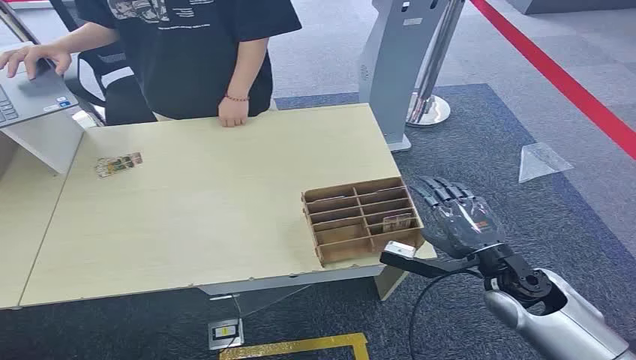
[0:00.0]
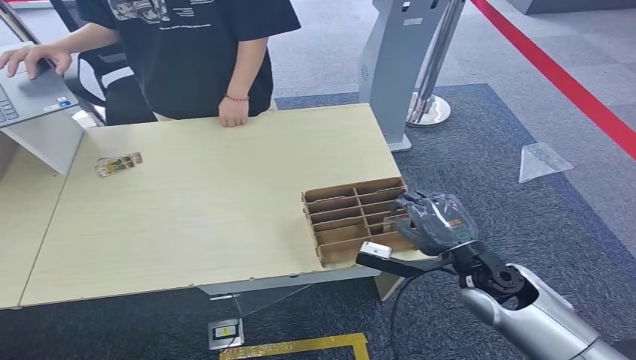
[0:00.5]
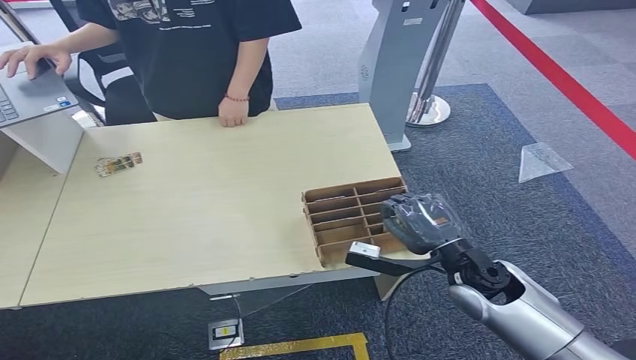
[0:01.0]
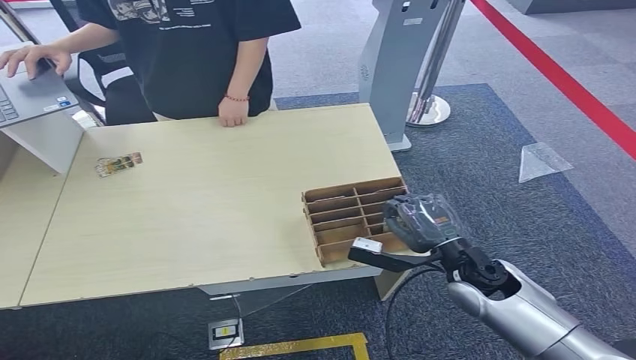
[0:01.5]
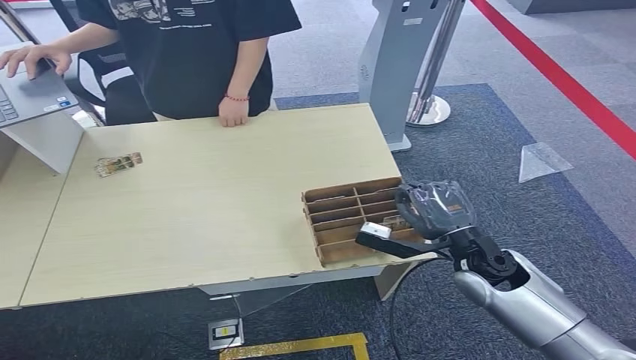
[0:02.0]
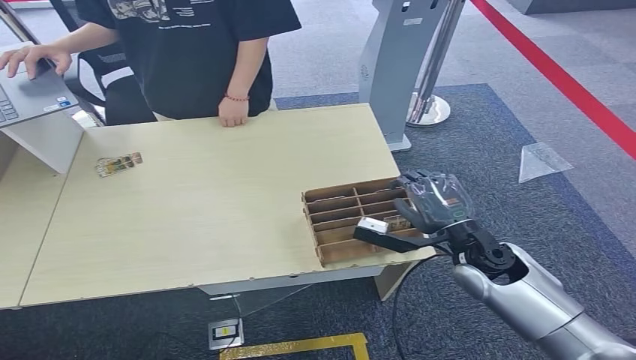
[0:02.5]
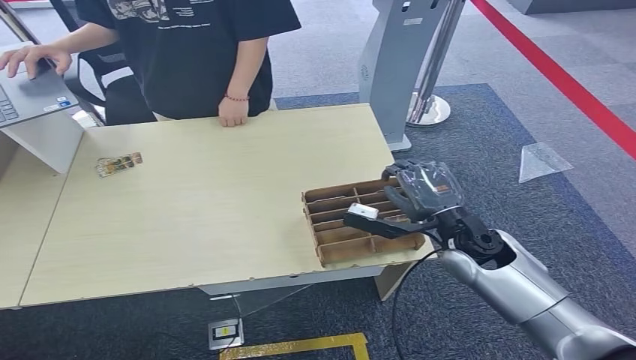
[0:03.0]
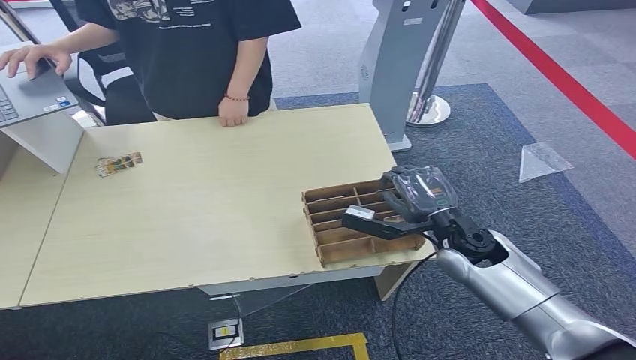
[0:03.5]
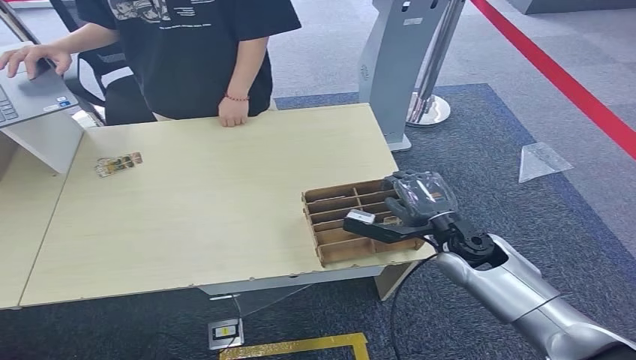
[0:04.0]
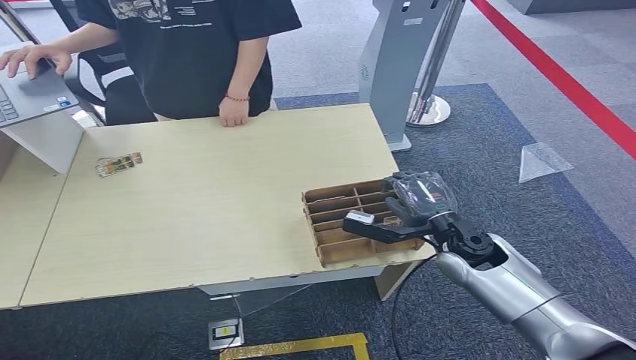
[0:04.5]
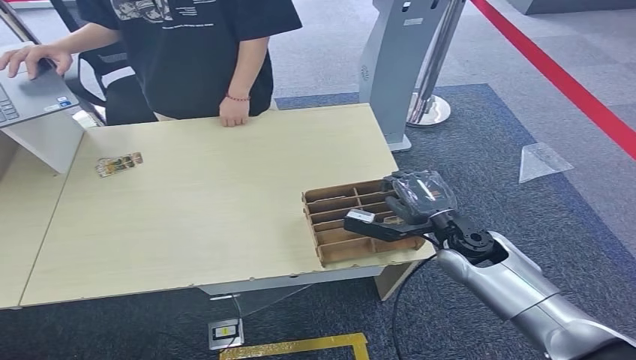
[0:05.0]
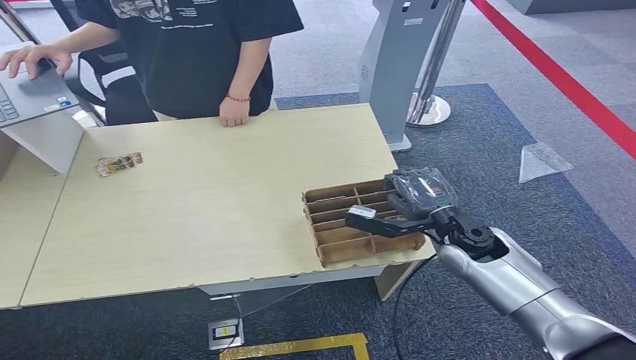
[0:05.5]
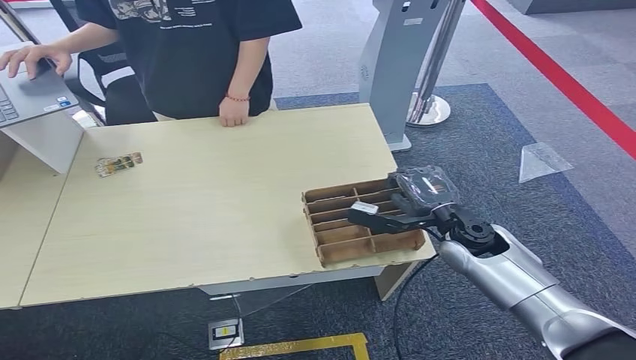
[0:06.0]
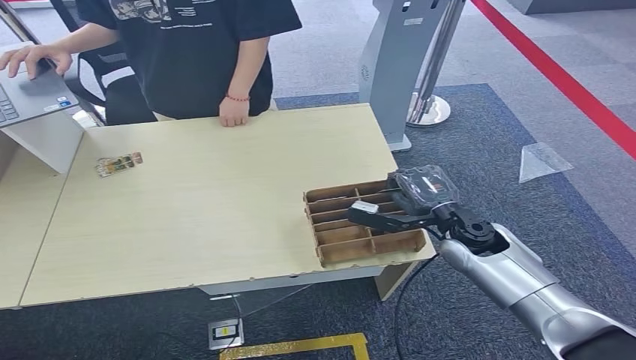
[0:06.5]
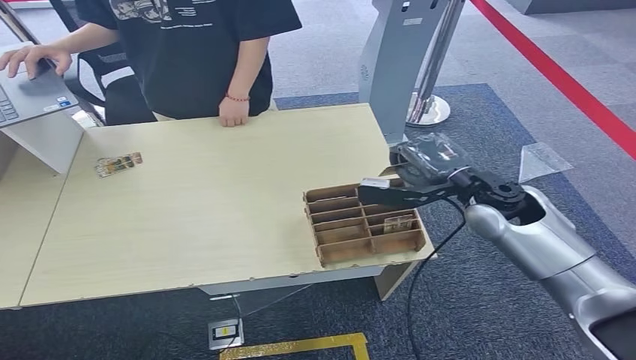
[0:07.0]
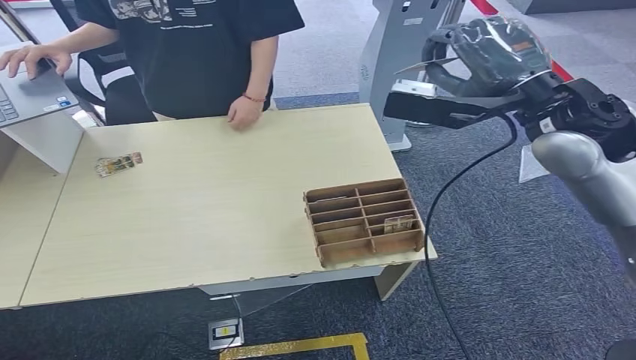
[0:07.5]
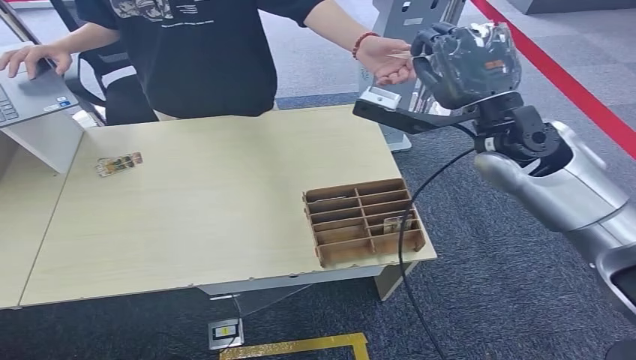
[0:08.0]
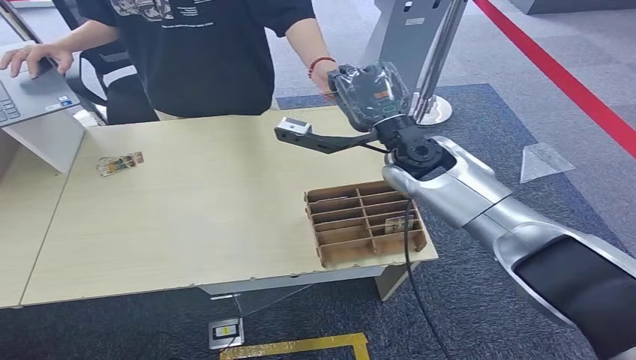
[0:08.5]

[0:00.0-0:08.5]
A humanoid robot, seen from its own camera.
Task of the whole recording: Pick up the card and hand it to the target person.
Step, 0:00.0 to 0:07.0: Pick up the key card from the card box.
Step, 0:07.5 to 0:08.5: Hand the key card to the target.
0:02.0 to 0:06.5: The hands move only a little.
0:06.5 to 0:08.5: The right hand heads upward, to the left and forward, covering about 20 cm.
